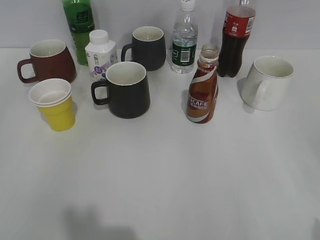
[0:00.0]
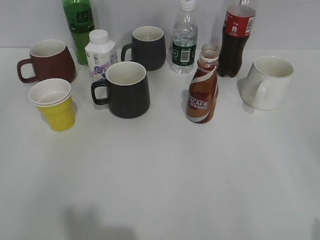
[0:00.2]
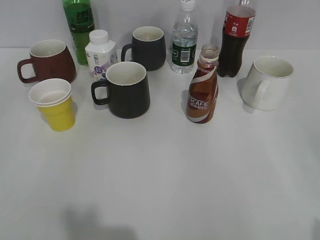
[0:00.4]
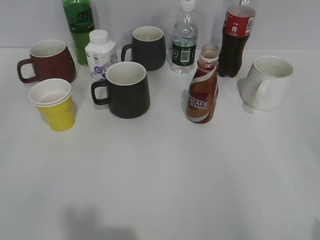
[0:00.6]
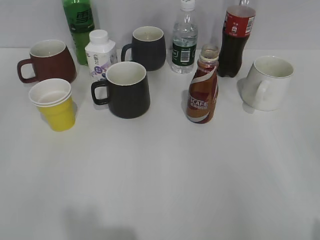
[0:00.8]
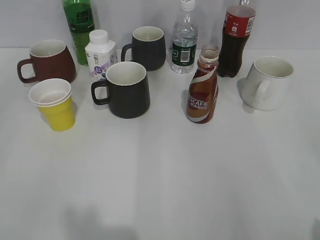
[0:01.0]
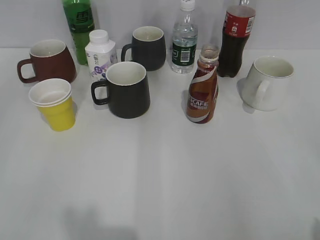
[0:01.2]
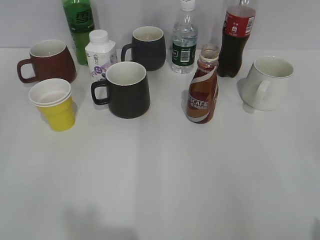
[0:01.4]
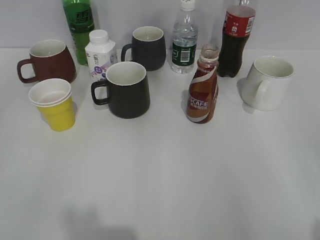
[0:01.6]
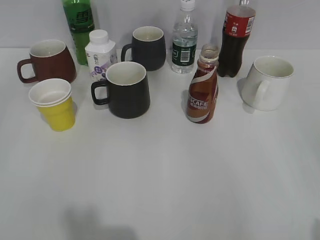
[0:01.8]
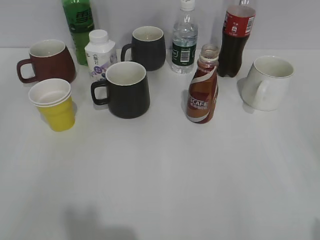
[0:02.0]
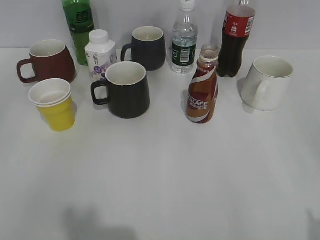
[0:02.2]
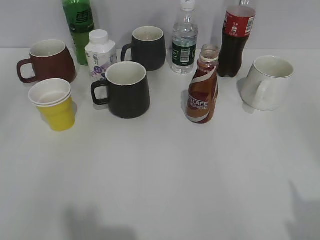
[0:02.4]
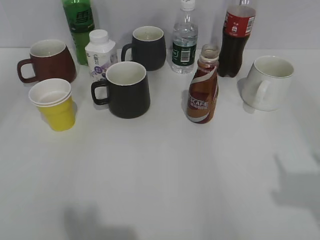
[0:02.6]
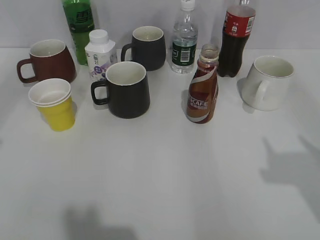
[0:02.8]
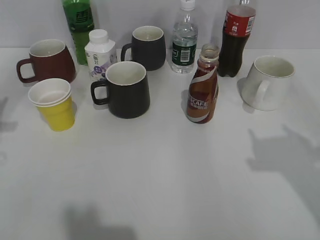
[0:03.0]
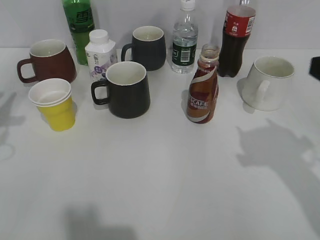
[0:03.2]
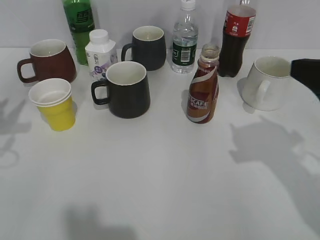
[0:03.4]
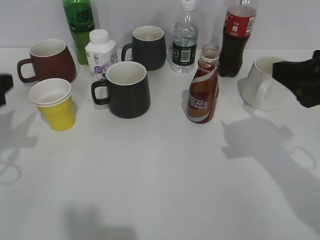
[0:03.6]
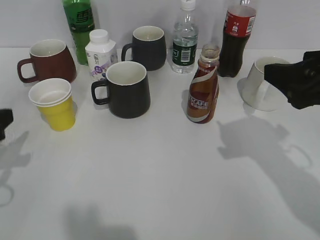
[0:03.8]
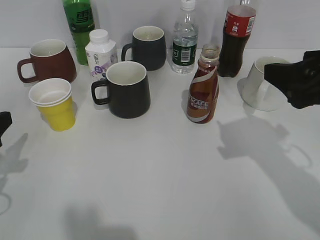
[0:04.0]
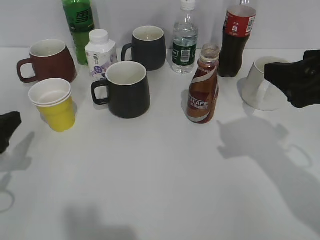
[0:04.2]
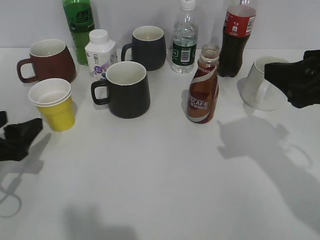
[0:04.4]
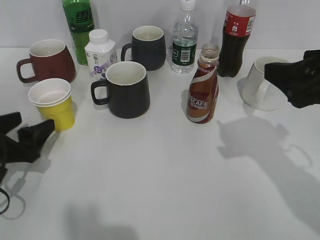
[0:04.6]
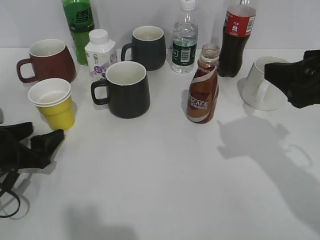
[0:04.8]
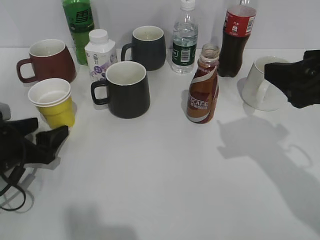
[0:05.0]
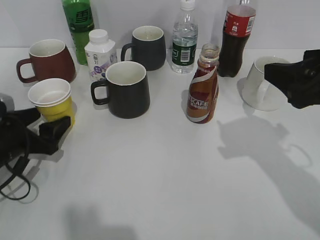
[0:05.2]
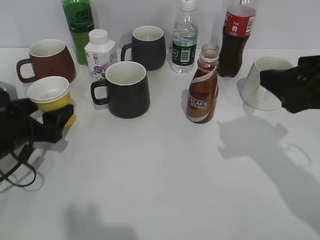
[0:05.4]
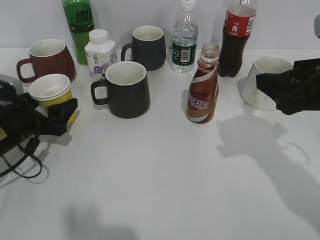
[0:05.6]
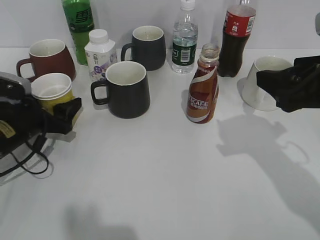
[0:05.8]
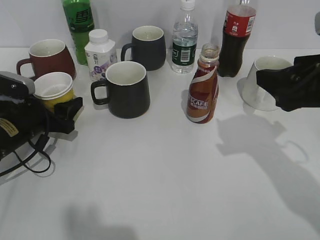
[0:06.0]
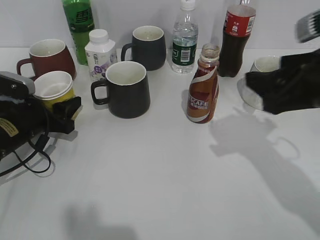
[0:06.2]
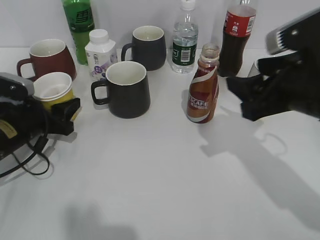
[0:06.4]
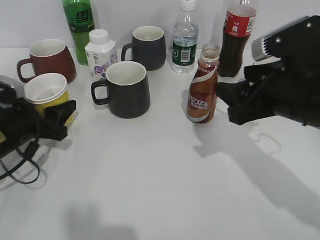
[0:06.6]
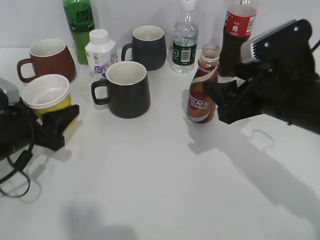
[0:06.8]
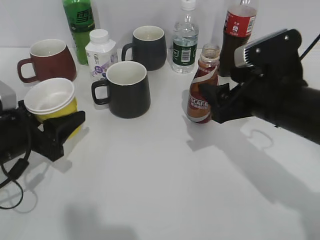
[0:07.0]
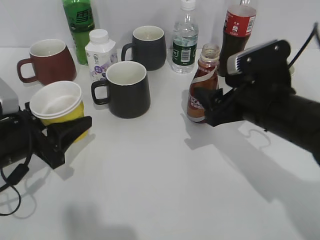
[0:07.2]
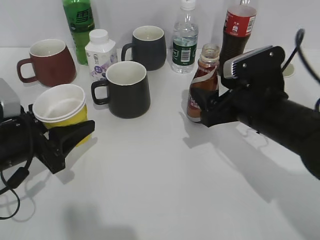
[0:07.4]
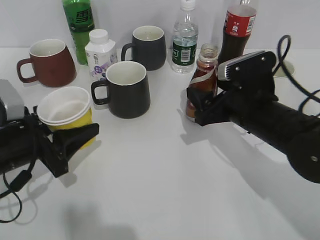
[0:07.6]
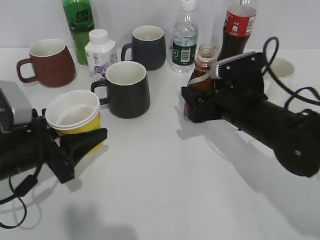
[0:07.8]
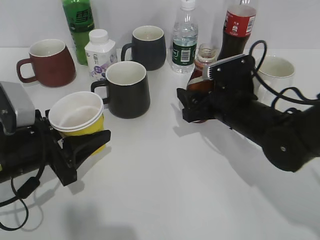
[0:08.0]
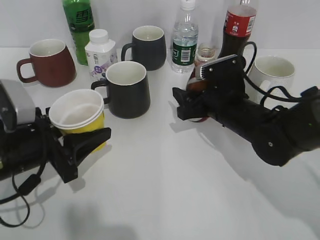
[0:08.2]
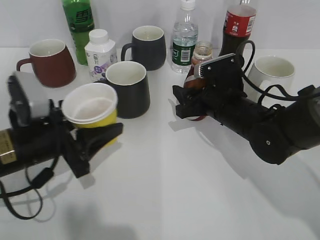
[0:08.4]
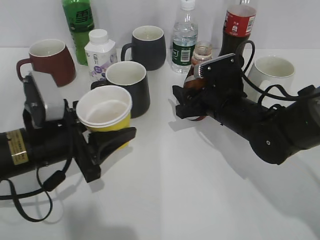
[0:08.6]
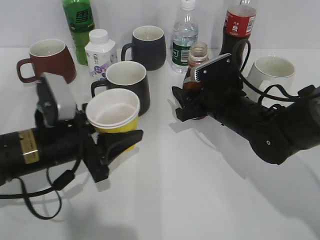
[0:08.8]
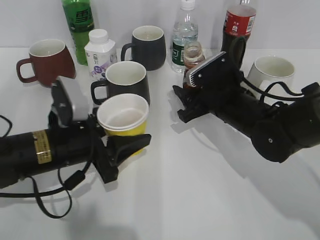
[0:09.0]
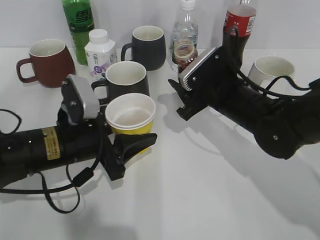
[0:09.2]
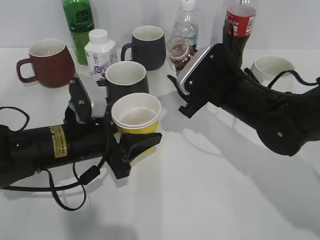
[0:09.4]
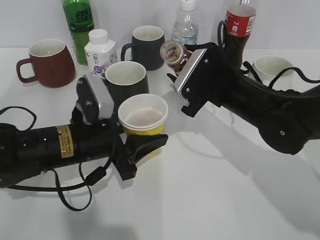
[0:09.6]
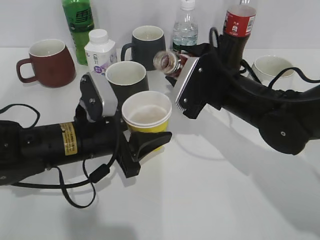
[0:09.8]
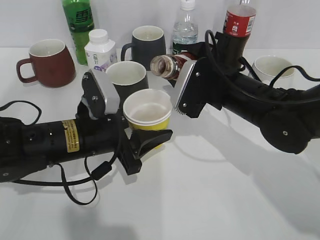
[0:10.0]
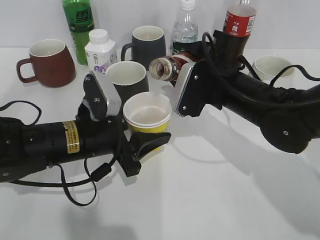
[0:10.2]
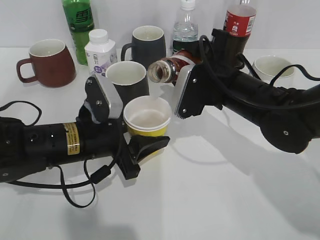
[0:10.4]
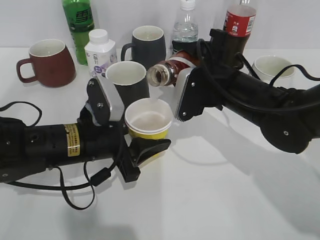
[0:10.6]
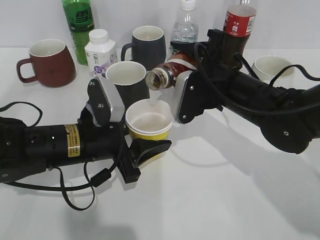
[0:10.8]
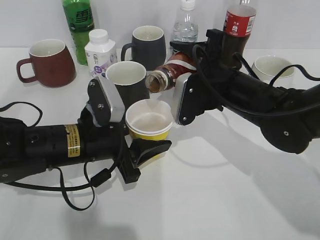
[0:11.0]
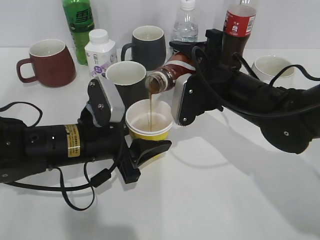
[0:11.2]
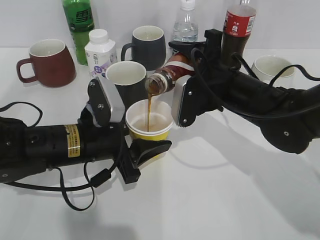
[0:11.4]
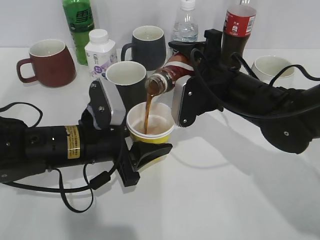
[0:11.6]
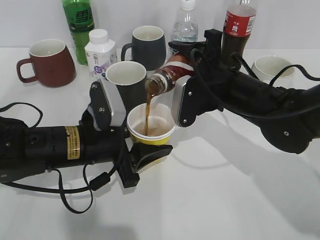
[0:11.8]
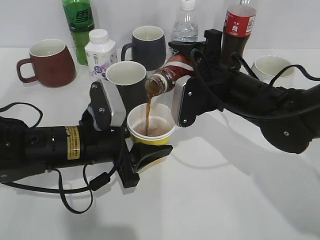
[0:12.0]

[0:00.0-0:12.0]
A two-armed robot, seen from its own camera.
Step, 0:02.0 to 0:06.2: Grasp the yellow paper cup with left gripper.
Step, 0:06.4 to 0:08.6: Grasp the bottle with coffee with right gripper.
0:01.6 to 0:03.0: The left gripper goes approximately 20 cm forward. Meanwhile the right gripper heads forward, covering some 15 cm.
0:03.0 to 0:04.4: The right gripper travels forward and to the left by approximately 10 cm. The left gripper shifts about 15 cm downward, and opens up.
0:04.4 to 0:06.0: The left gripper moves forward and downward, some 10 cm.
0:06.0 to 0:07.6: The right gripper is displaced downward, to the left and forward by some 15 cm, and closes, then reopens. Meanwhile the left gripper travels backward by about 10 cm.
0:07.6 to 0:09.0: The left gripper heads to the right, covering some 5 cm, while the right gripper ends up some 5 cm from where it was, and closes up.
0:10.4 to 0:12.0: There are only small adjustments of the grippers.

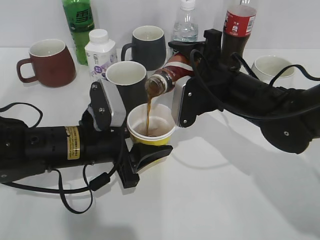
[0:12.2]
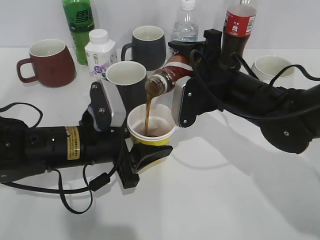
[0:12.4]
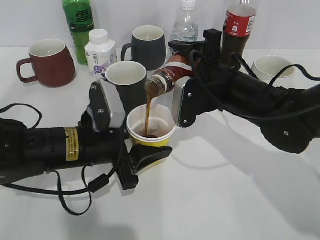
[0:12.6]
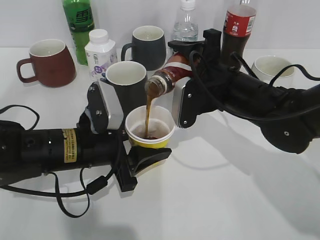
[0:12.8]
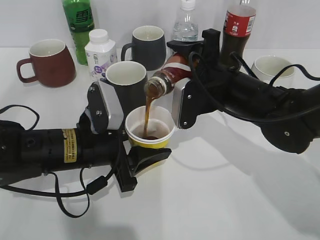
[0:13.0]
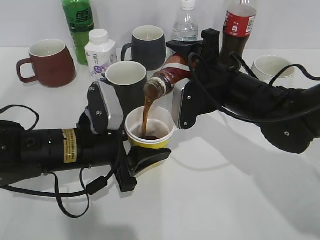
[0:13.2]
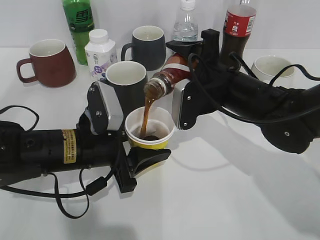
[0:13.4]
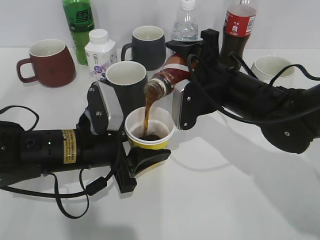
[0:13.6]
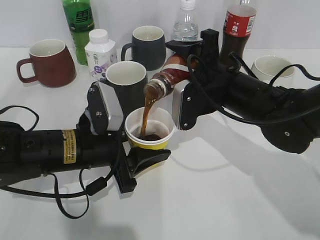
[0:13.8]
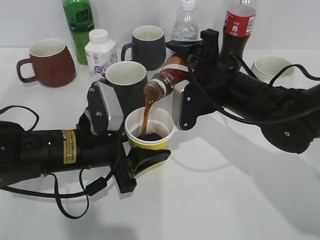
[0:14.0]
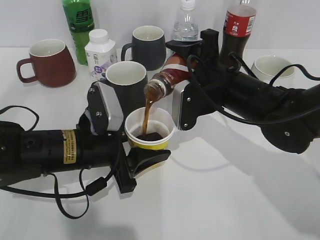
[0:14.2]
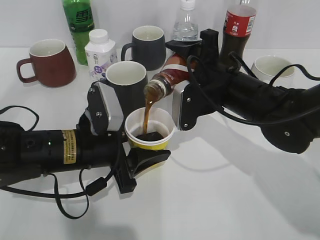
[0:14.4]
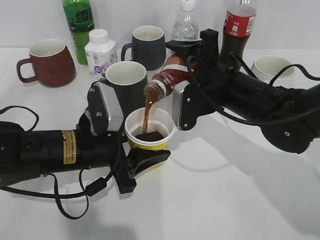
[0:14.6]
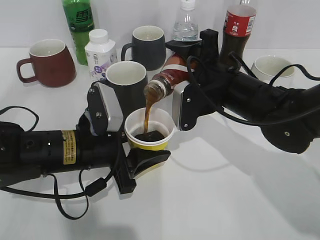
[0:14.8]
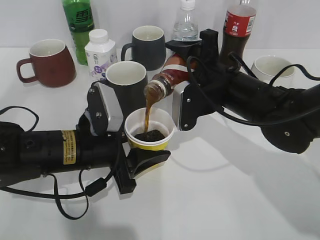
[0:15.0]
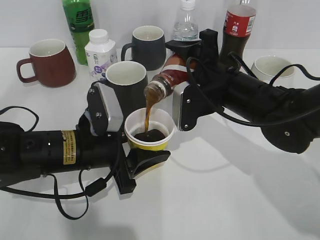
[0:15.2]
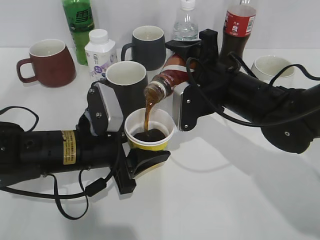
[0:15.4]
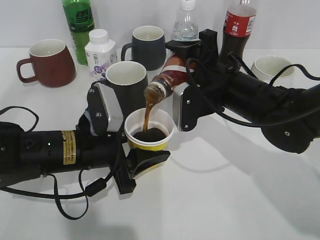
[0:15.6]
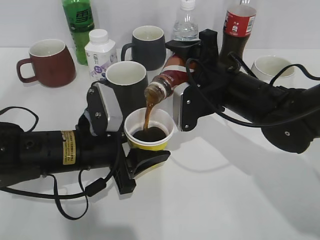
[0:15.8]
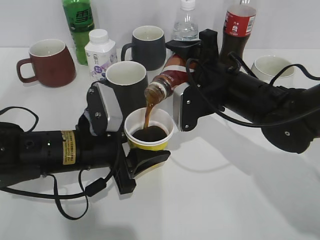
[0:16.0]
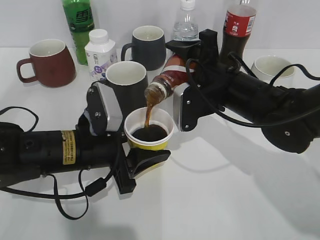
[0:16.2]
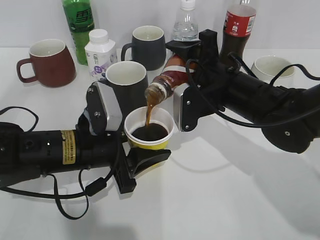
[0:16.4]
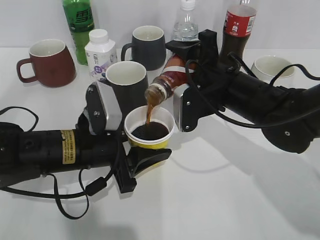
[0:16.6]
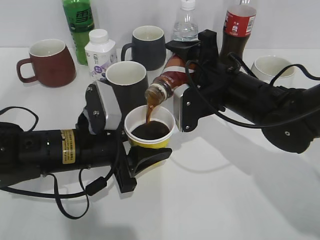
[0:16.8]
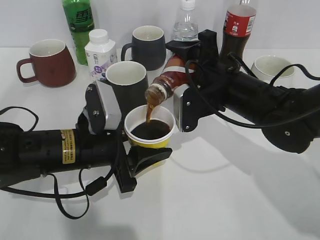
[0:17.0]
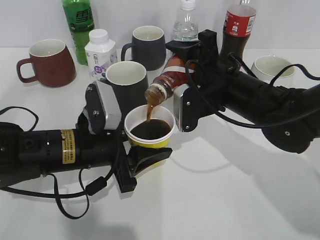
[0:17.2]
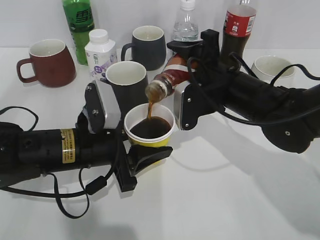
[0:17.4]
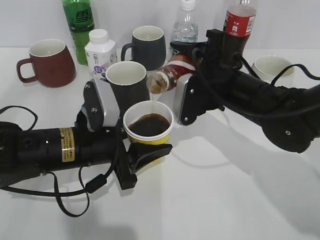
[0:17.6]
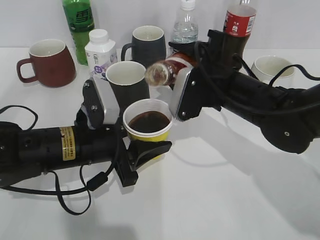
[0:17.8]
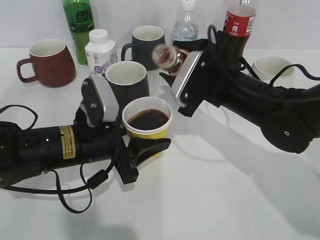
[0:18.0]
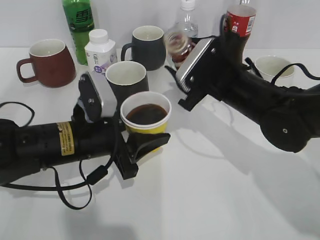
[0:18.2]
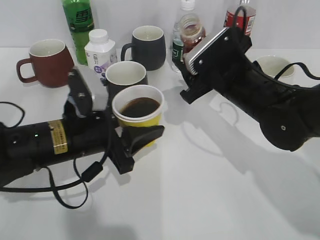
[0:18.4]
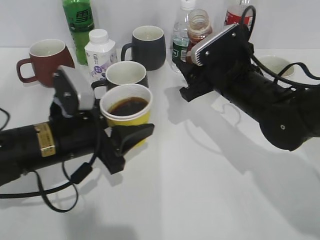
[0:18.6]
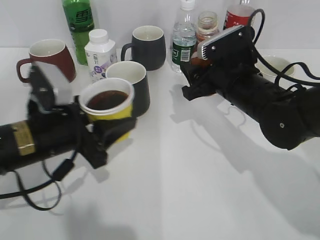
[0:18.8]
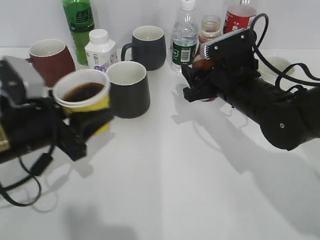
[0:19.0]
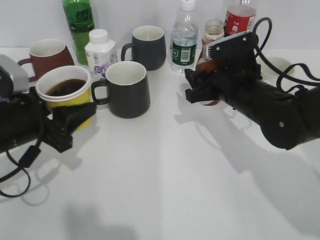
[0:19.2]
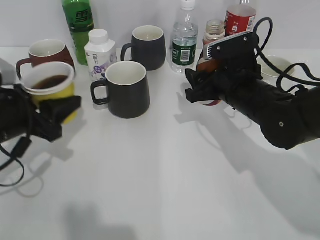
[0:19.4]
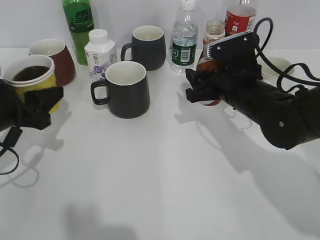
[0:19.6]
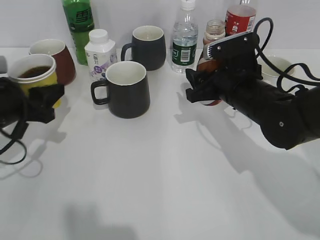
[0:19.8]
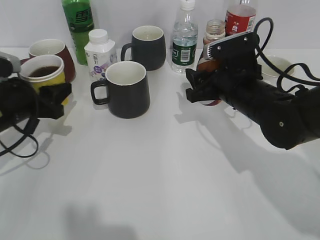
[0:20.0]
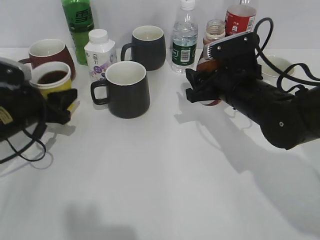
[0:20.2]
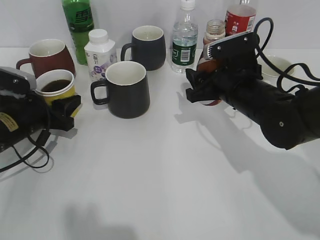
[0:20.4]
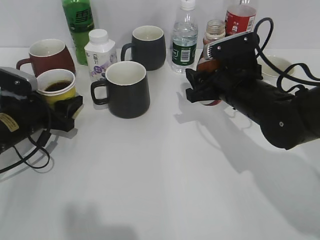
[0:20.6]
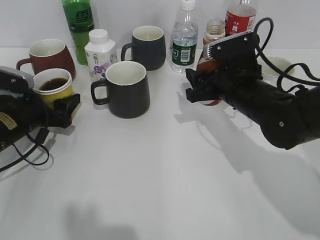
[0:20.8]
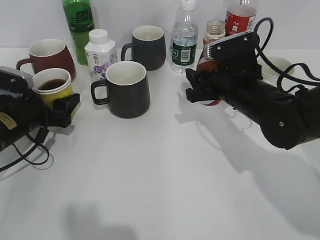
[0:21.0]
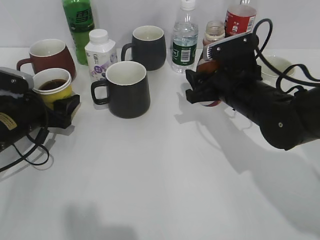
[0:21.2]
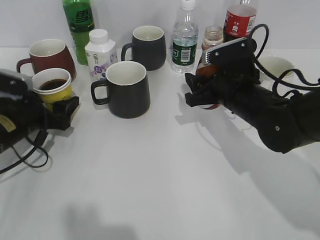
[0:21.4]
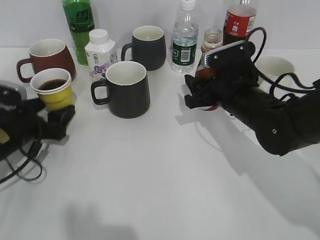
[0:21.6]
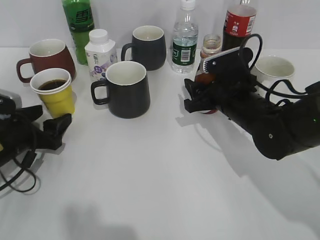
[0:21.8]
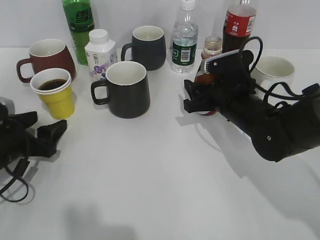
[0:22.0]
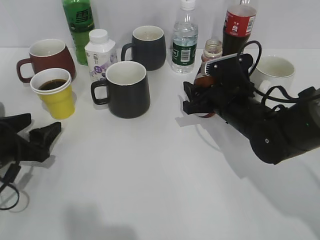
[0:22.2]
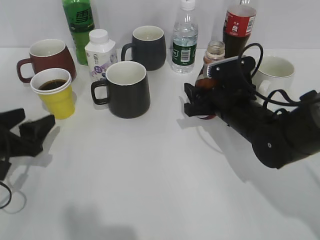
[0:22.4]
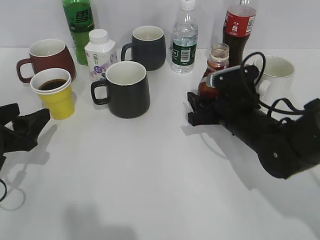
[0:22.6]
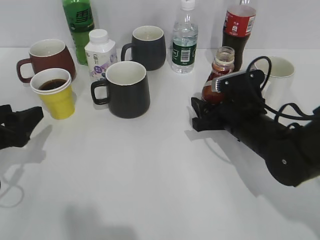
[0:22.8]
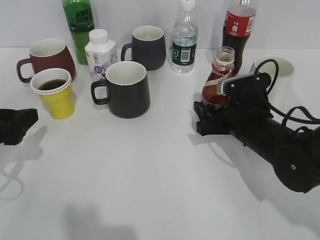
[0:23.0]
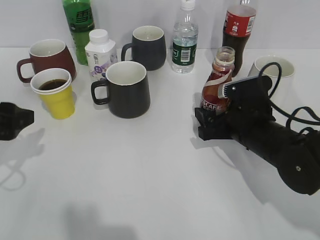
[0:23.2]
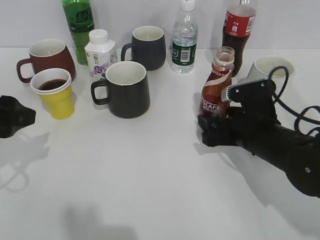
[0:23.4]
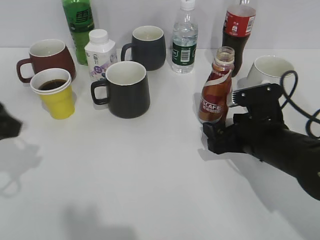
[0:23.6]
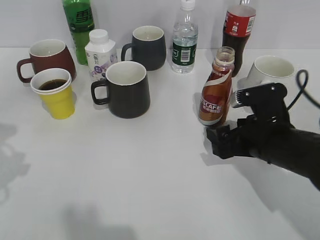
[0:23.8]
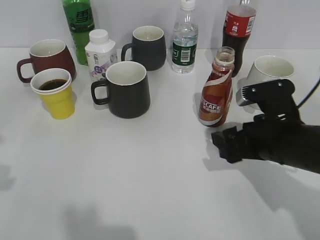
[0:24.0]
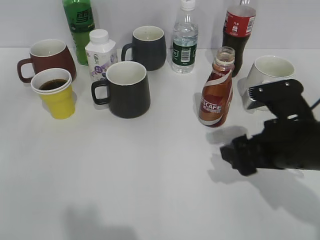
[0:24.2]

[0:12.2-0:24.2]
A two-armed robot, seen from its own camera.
Step, 0:12.2 to 0:17.8: Pour the coffee from bottle to cup with right gripper.
Step, 0:18.0 to 0:21.4: Place the yellow paper cup on the table with left gripper.
Step, 0:21.6 to 0:23.6: Place the coffee bottle on the table with right gripper.
0:12.2 to 0:13.8: Both grippers stay about where they are.
0:13.8 to 0:15.2: Both grippers stay put.
0:15.2 to 0:16.6: Both grippers stay put.
0:18.2 to 0:19.8: The left gripper travels to the left by some 15 cm.
0:19.8 to 0:21.2: The left gripper travels downward by approximately 5 cm, and opens.
0:21.2 to 0:22.6: The left gripper shifts some 10 cm backward. Meanwhile the right gripper moves approximately 5 cm.
0:22.6 to 0:24.2: The left gripper travels upward and backward by roughly 20 cm. Meanwhile the right gripper goes about 10 cm backward and upward, and opens.
